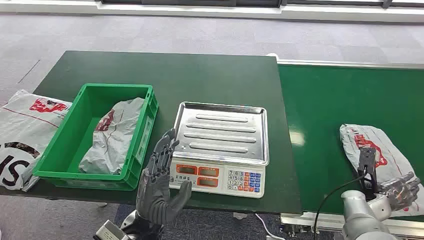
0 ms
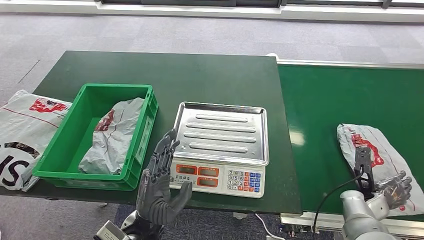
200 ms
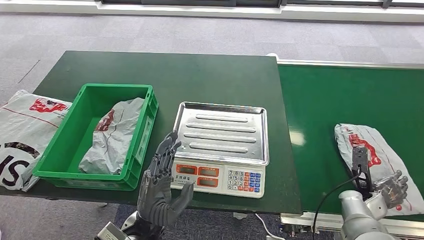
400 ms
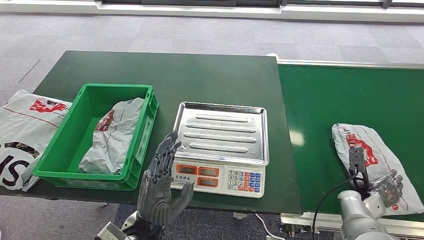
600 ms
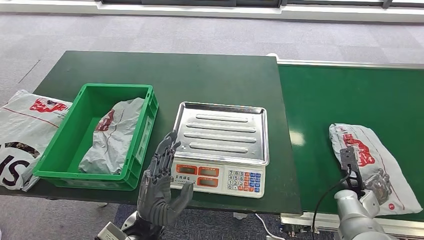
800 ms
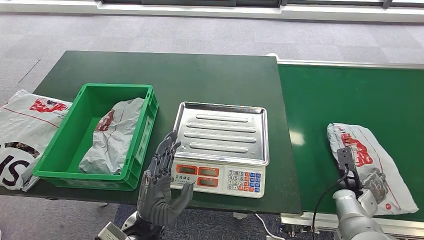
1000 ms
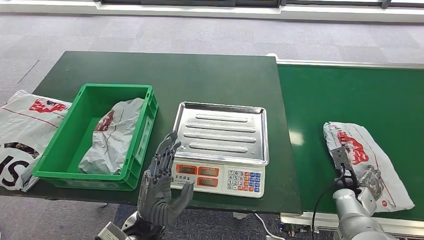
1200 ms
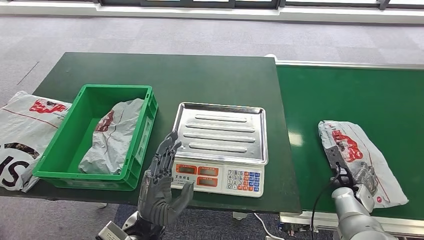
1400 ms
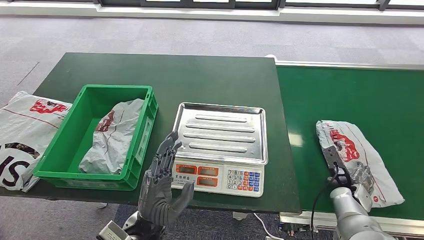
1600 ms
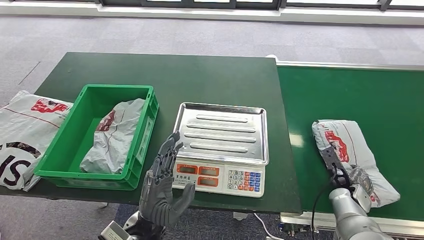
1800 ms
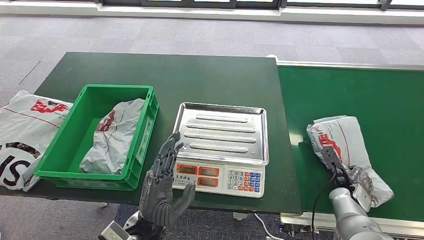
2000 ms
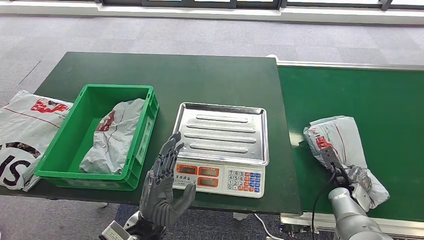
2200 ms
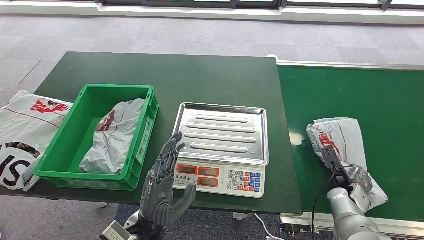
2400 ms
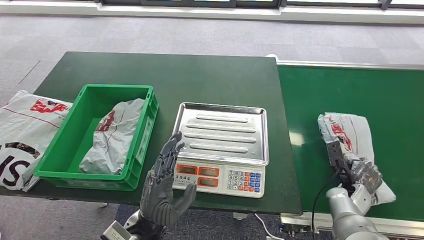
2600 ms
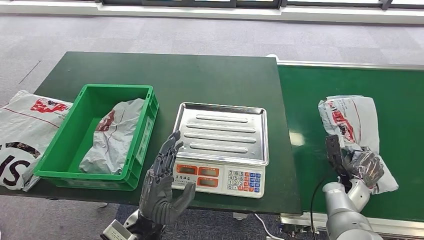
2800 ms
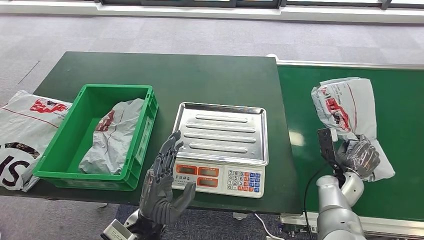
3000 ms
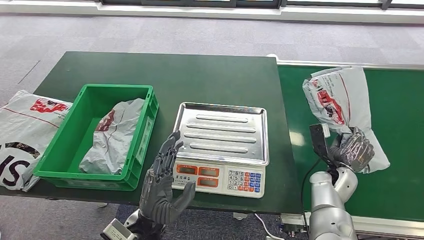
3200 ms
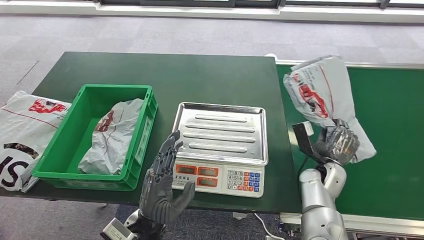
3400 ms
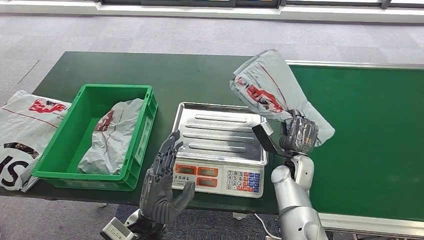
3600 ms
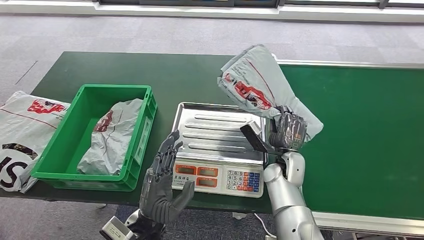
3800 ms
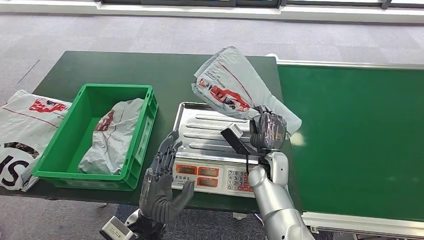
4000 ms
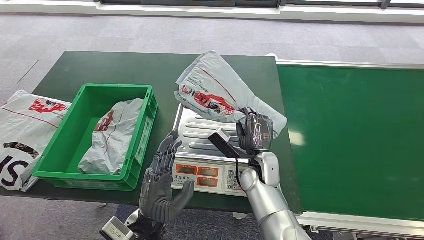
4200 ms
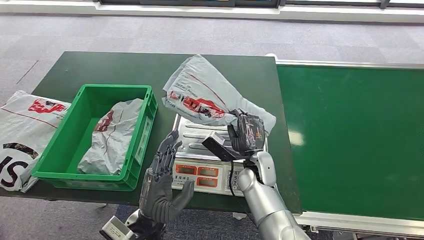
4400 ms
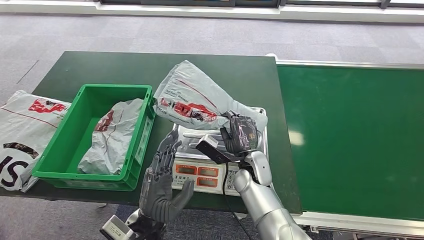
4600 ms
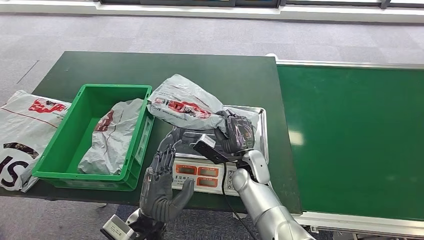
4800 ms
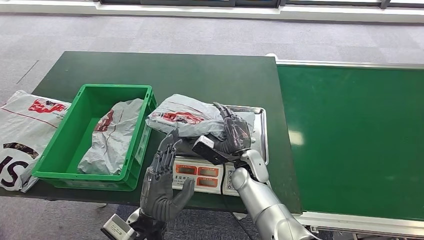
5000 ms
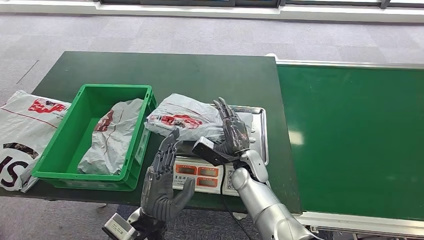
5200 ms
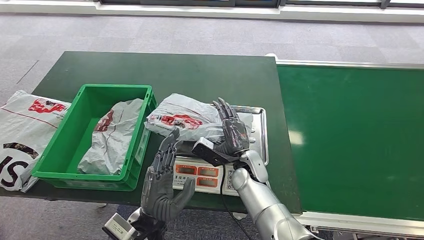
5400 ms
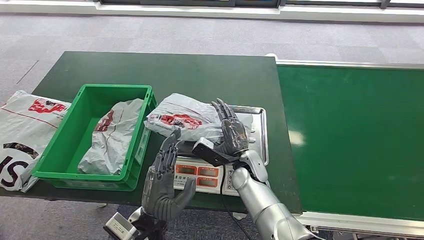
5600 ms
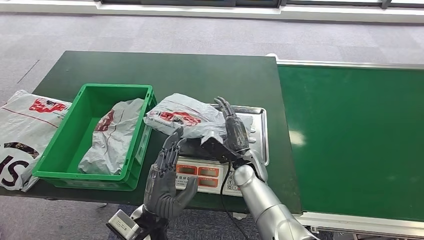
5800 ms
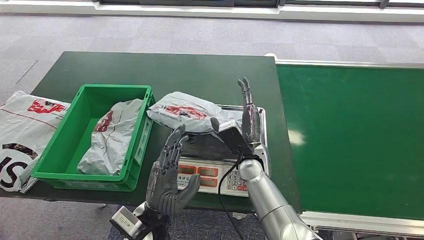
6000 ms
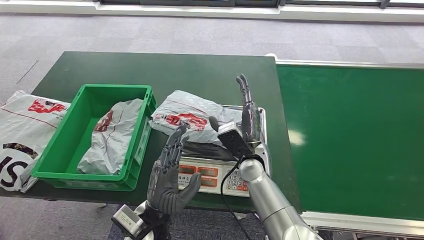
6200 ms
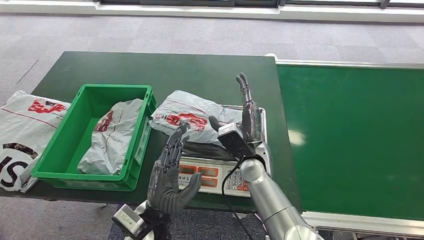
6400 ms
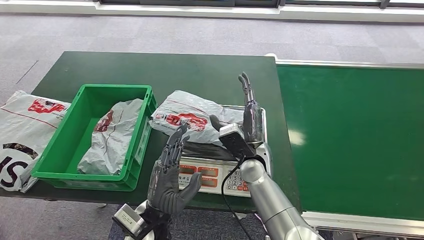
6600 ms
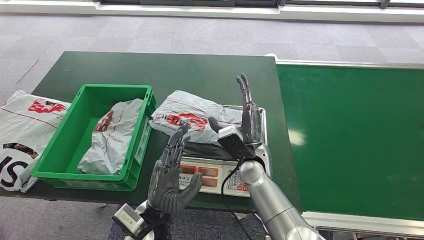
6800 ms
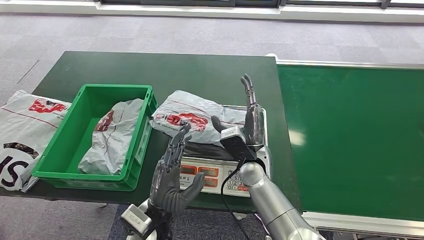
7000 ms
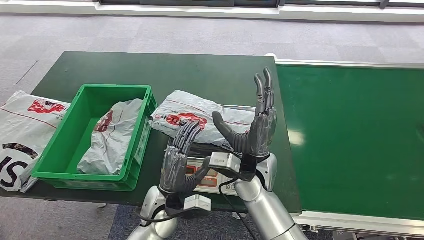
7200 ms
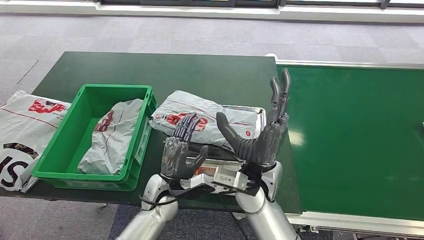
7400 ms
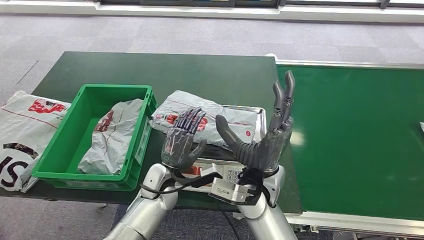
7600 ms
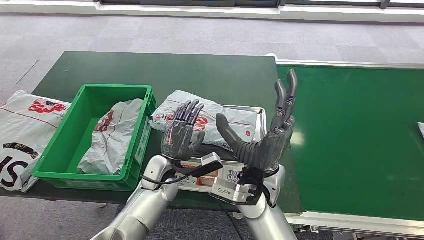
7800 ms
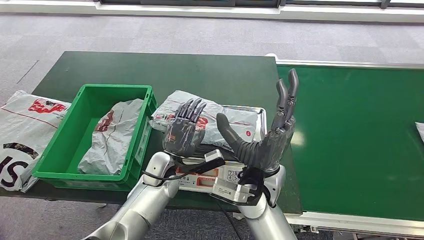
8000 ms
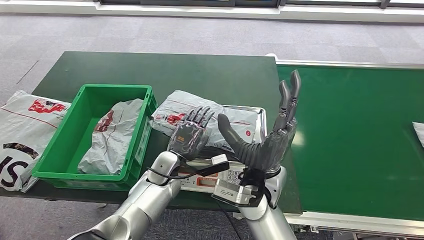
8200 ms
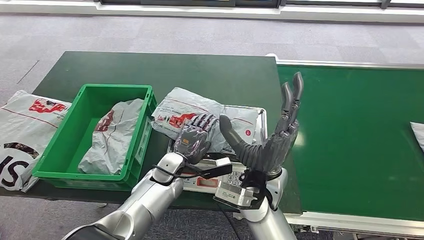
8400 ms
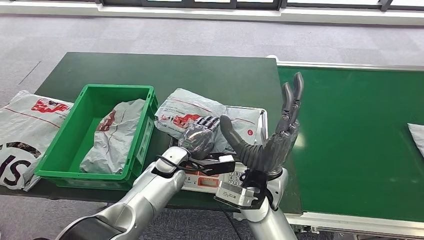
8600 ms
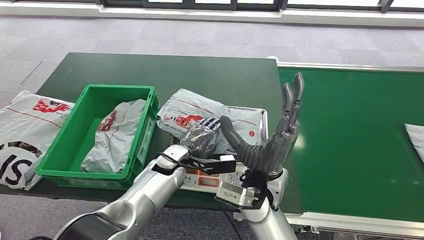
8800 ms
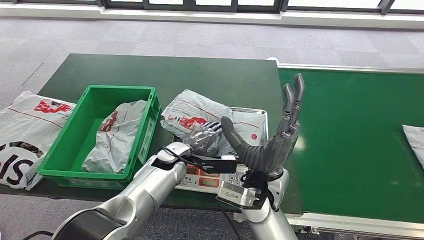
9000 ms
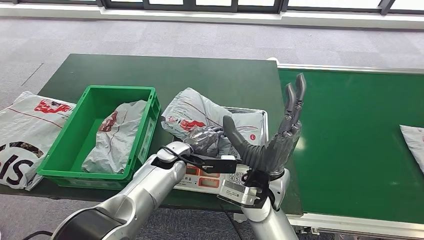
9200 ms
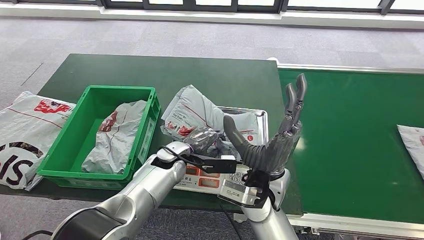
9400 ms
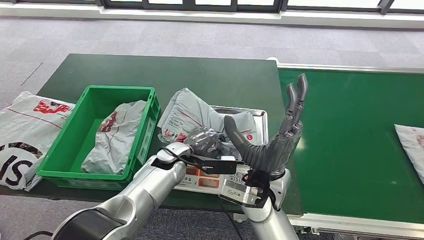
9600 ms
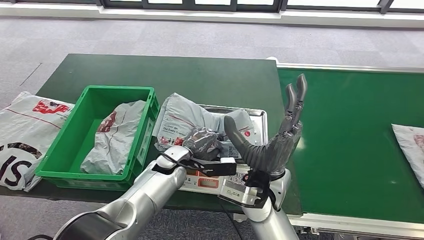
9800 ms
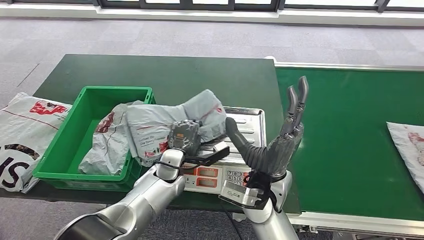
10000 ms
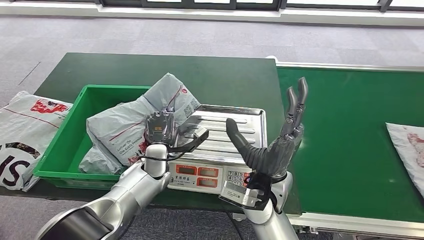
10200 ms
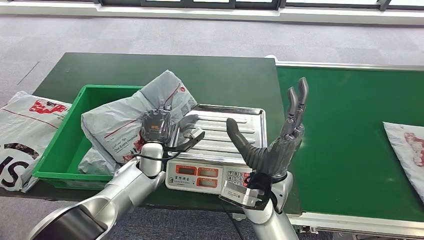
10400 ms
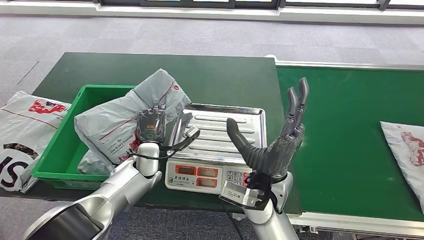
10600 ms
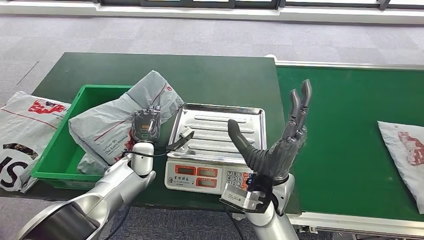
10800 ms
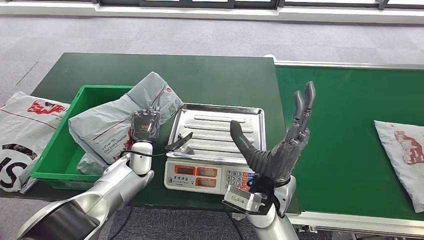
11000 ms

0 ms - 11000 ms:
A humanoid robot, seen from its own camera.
Step, 0 ms - 3200 ms: Pick up the package from the conveyor belt.
Step, 3400 ms - 6200 ms: Place the package onto the inbound machine.
Step, 6400 ms - 10000 ms: Pick up the package from the inbound machine.
1600 ms - 3200 ms: The right hand travels to the left by roughly 5 cm.
6200 ms - 7800 ms: The left hand goes roughly 15 cm forward. Meanwhile the right hand is displaced upward and backward by about 10 cm.

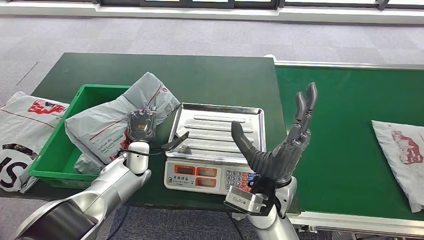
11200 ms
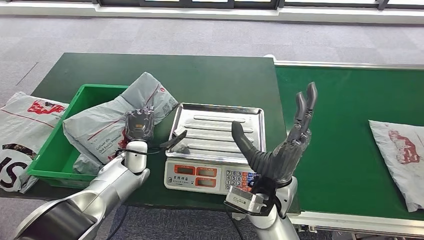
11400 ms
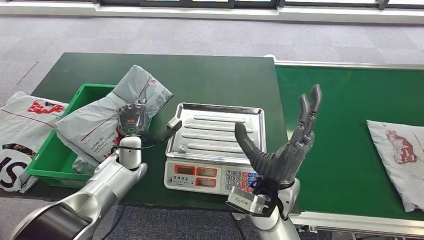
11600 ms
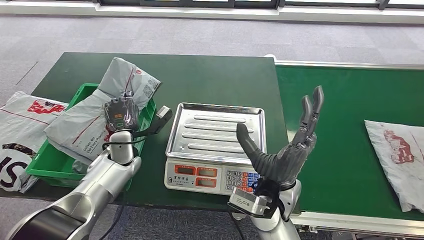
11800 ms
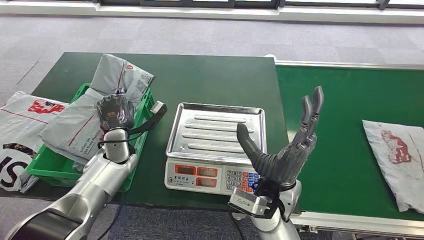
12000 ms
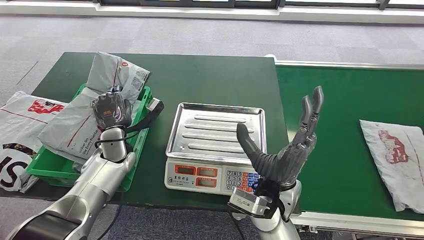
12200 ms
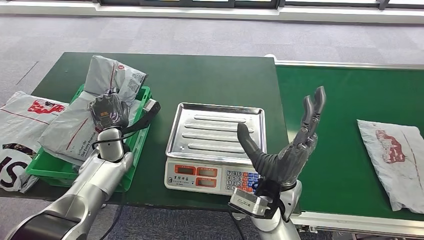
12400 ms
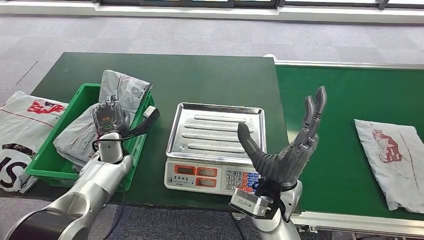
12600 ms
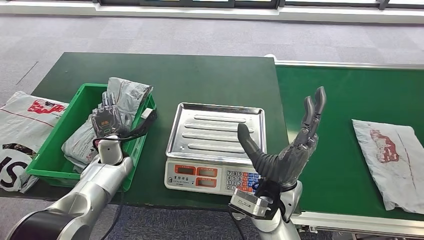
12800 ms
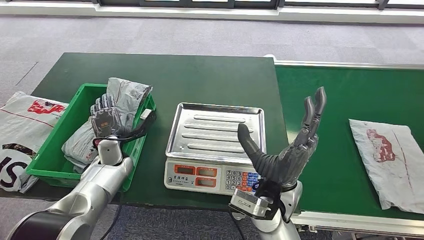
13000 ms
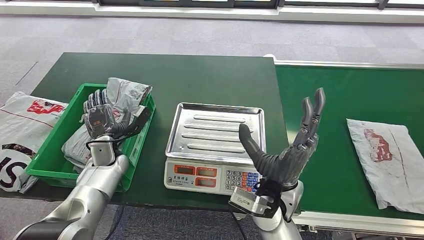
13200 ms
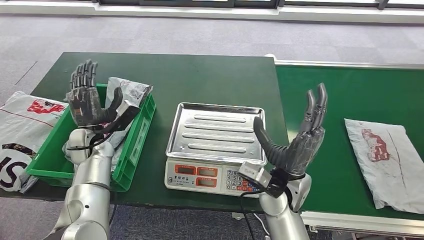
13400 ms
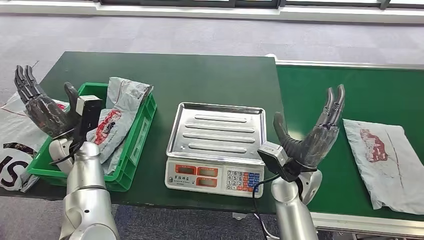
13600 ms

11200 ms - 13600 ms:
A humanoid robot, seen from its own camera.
Step, 11200 ms - 13400 ms: Place the package into the parcel locker.
